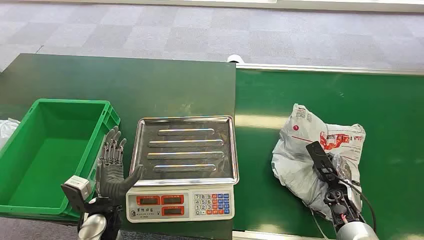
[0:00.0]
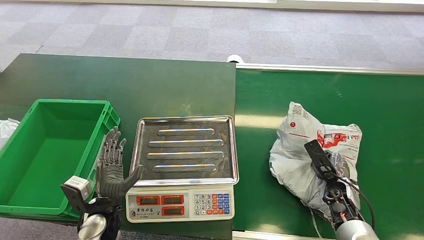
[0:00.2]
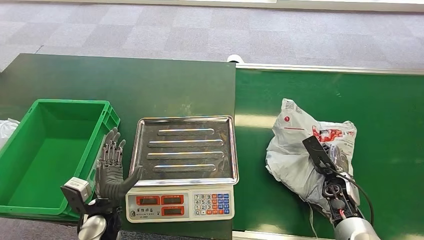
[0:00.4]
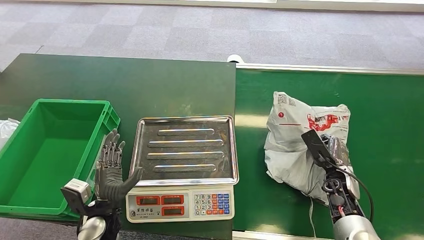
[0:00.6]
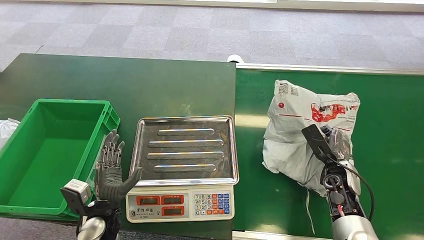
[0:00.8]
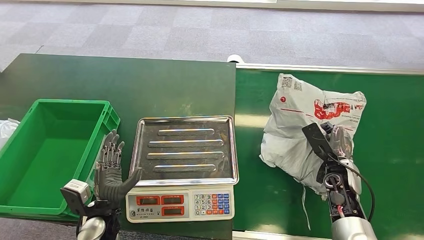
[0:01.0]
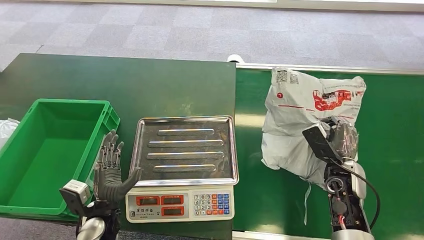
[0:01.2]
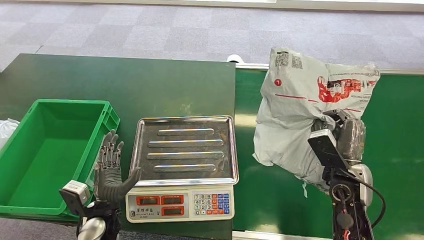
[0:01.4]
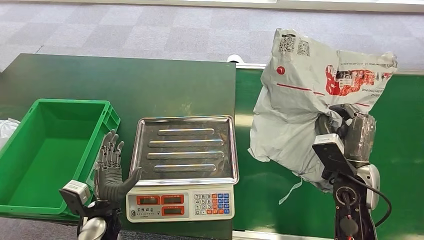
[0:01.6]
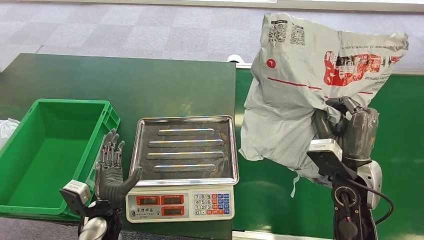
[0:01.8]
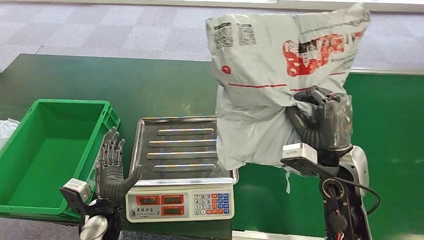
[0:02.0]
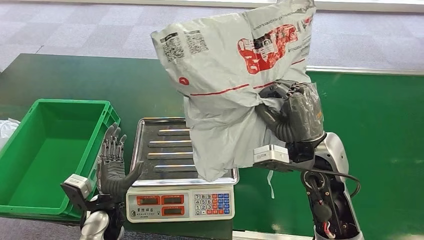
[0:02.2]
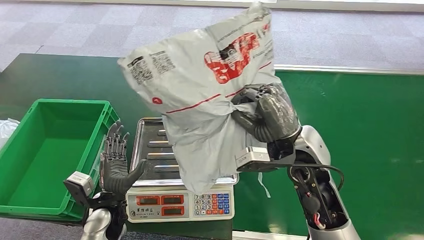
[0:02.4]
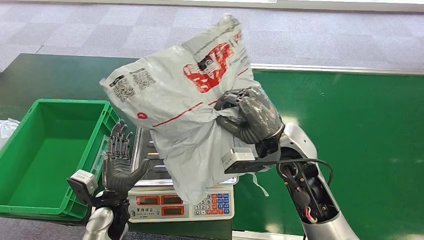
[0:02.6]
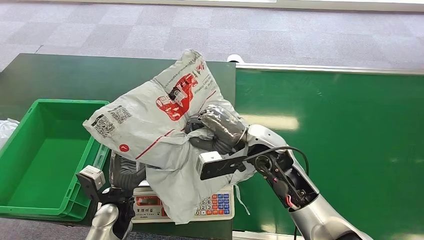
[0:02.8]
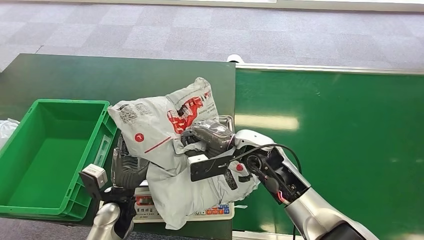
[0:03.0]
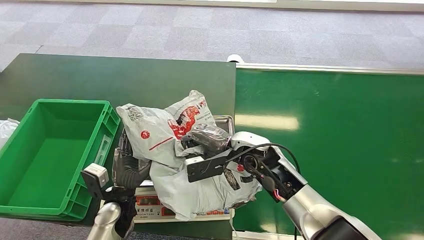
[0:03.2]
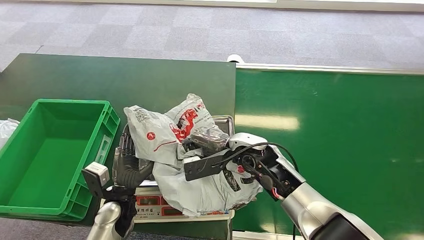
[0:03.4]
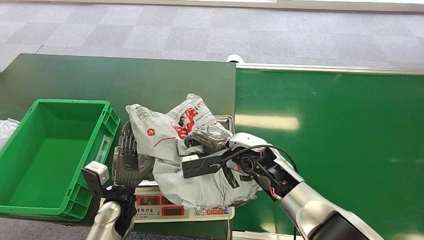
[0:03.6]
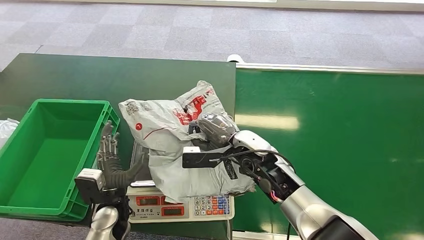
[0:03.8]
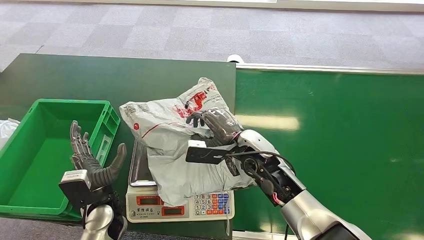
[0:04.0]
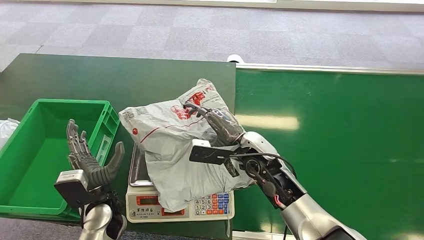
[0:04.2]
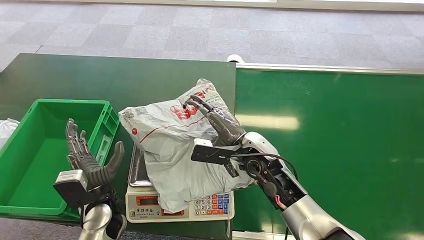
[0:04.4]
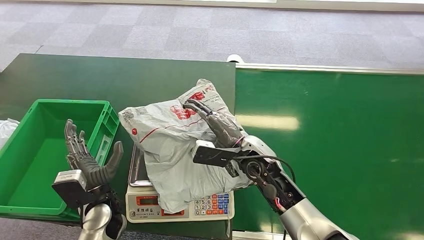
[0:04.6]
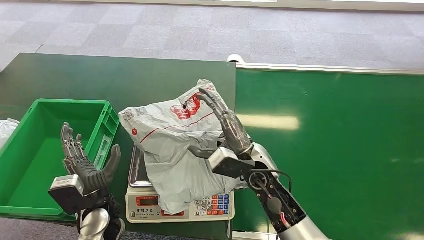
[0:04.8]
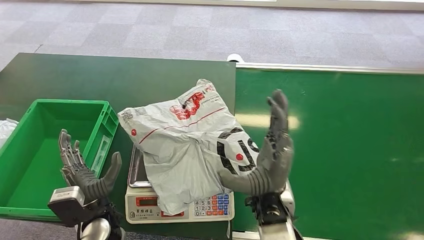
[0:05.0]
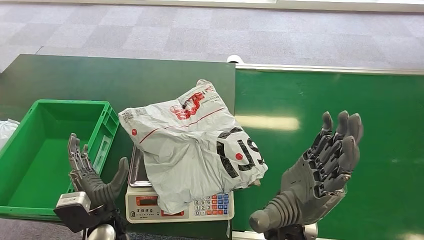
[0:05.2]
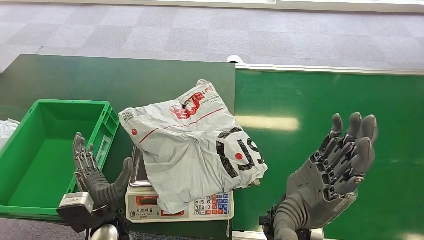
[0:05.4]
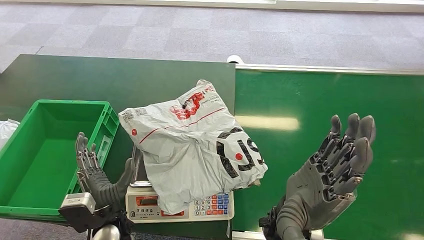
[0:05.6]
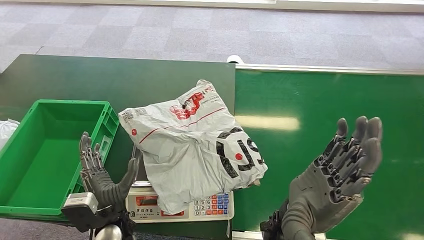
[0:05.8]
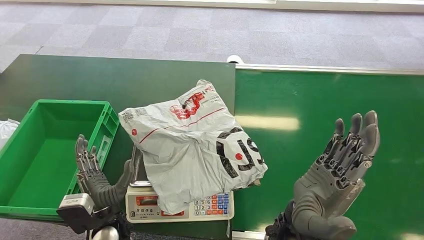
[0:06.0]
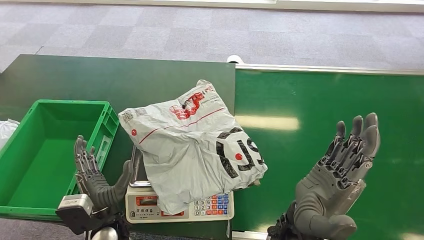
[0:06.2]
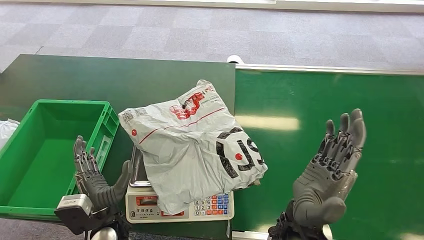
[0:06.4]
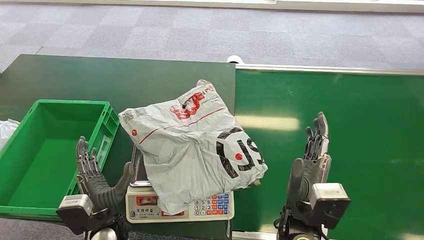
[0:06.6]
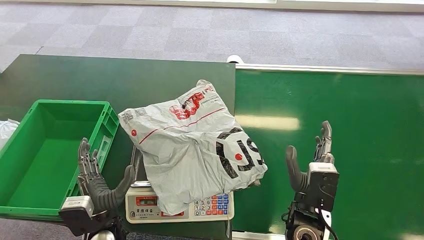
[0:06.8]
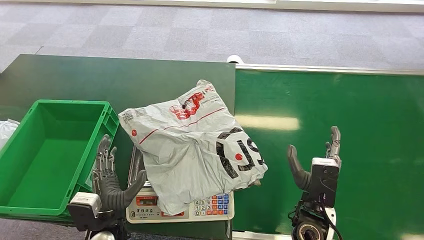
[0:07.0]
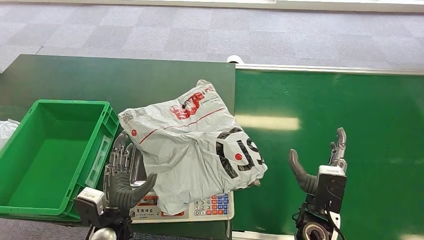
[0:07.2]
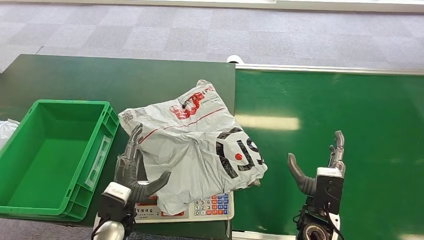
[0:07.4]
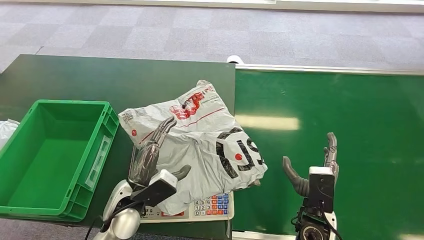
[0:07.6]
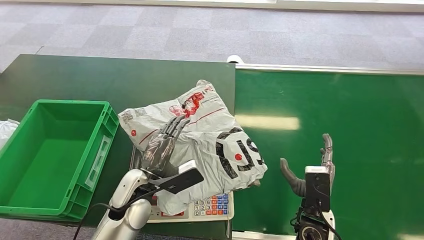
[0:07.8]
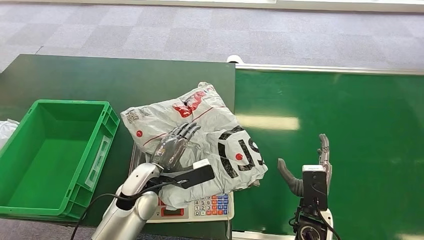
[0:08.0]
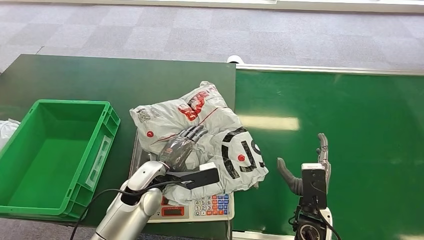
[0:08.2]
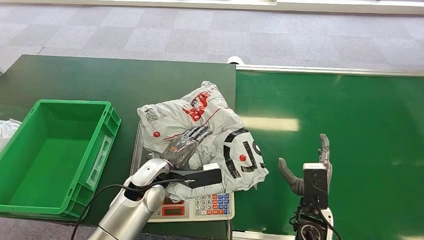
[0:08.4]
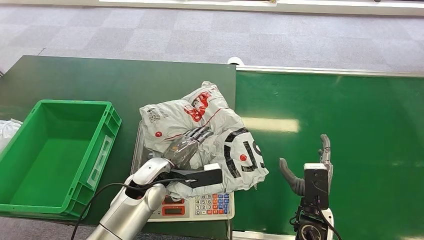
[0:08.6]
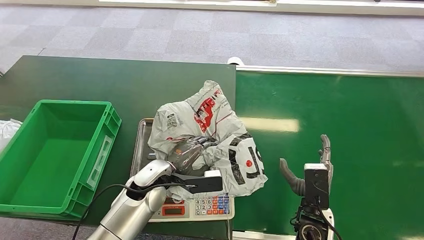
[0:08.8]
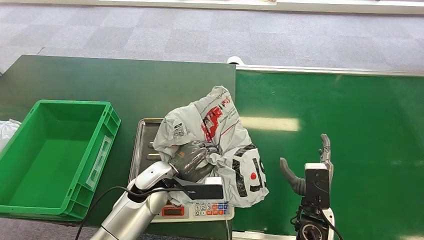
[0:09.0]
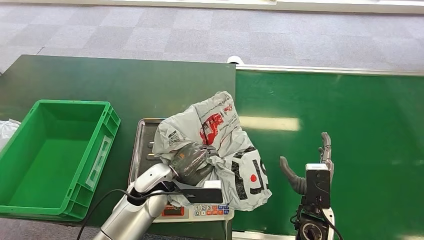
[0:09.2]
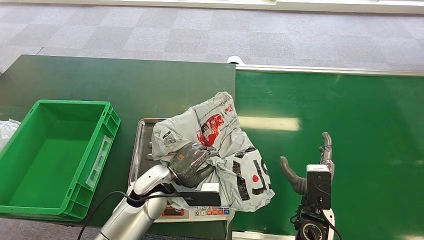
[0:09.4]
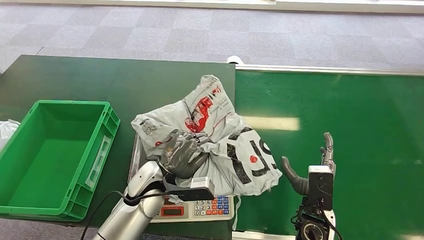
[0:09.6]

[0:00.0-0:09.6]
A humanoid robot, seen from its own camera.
Step, 0:00.0 to 0:01.4: Pick up the package from the conveyor belt.
Step, 0:02.2 to 0:04.6: Place the package onto the inbound machine.
0:04.8 to 0:06.4: The left hand changes place by about 5 cm. Meanwhile the right hand is displaced backward by about 15 cm.
0:06.4 to 0:08.0: The right hand goes approximately 15 cm downward, to the right and forward; the left hand travels forward and to the right by about 10 cm.

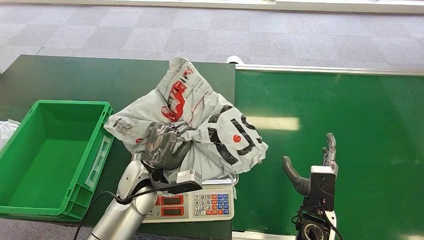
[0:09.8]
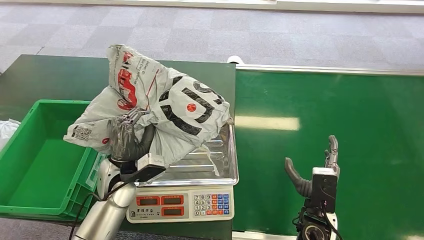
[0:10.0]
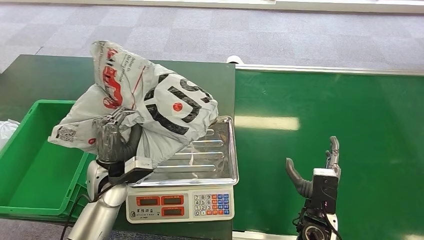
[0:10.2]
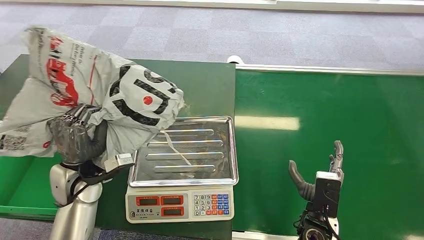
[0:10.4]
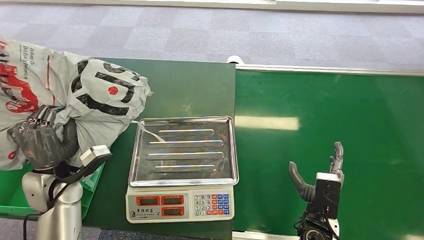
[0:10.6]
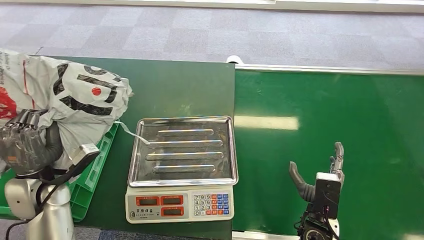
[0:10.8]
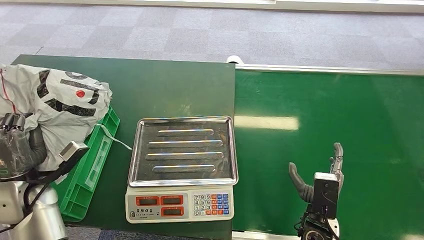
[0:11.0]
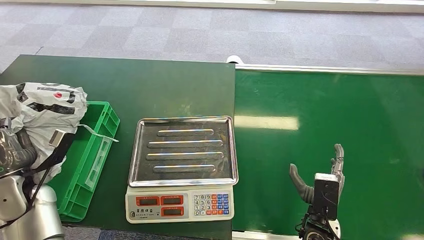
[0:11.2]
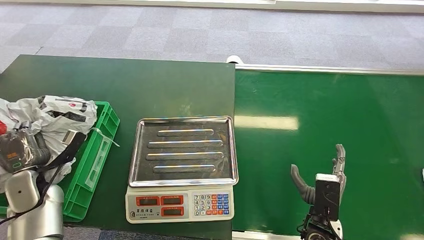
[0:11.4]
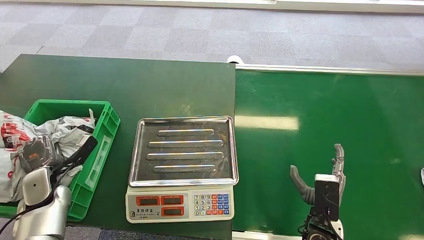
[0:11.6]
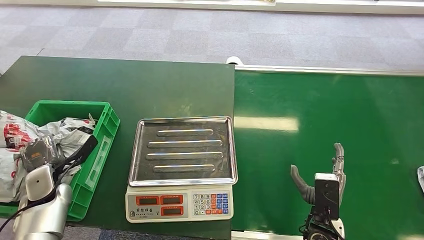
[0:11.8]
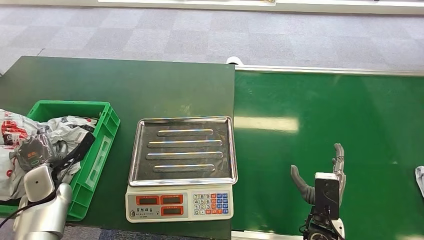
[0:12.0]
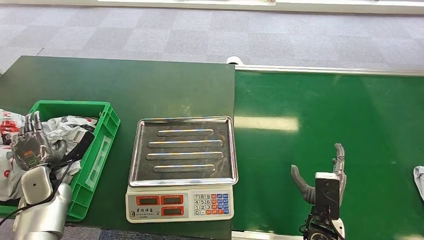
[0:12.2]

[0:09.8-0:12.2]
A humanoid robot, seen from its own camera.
Step, 0:10.6 to 0:12.2: Place the package into the parcel locker.
0:11.0 to 0:12.2: The left hand goes about 10 cm downward.

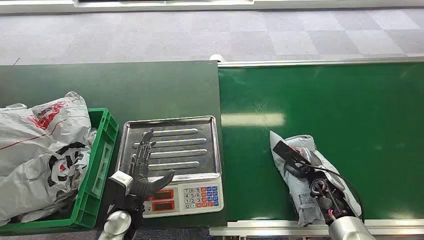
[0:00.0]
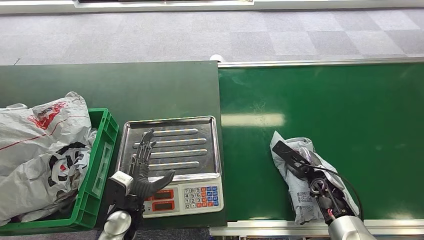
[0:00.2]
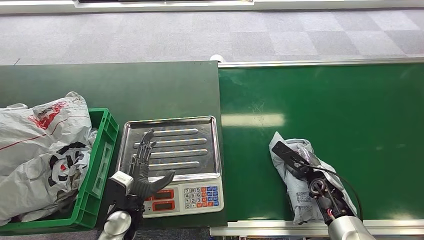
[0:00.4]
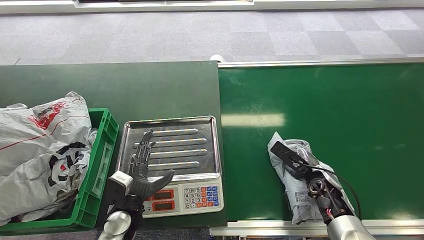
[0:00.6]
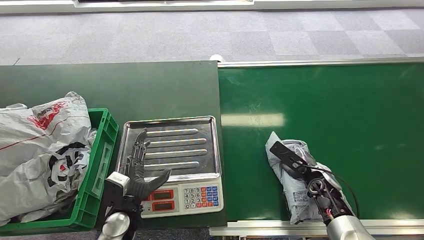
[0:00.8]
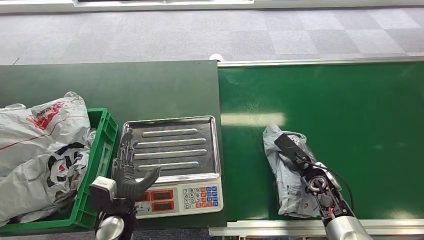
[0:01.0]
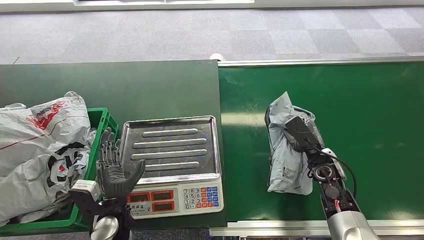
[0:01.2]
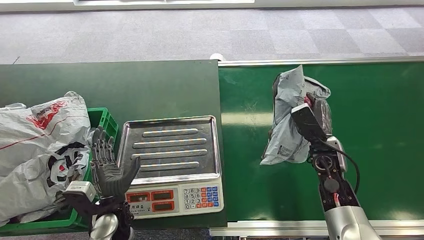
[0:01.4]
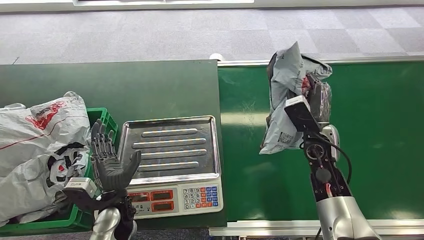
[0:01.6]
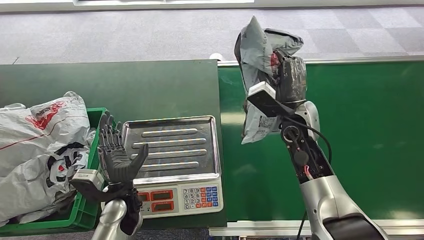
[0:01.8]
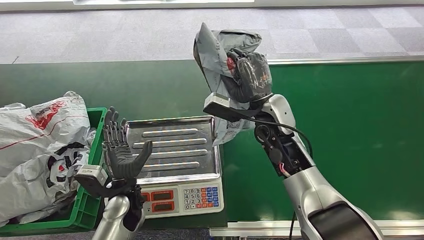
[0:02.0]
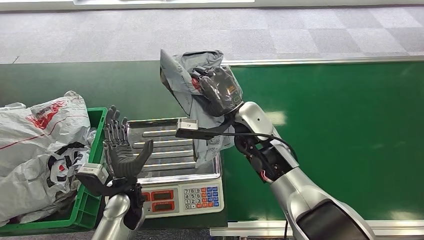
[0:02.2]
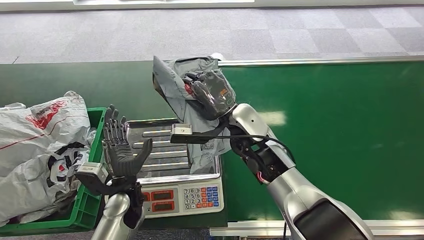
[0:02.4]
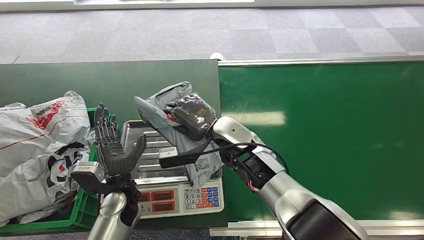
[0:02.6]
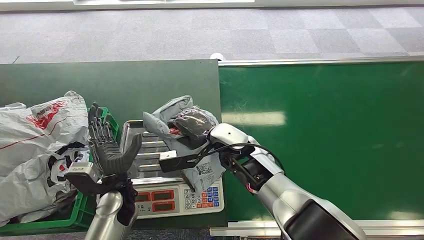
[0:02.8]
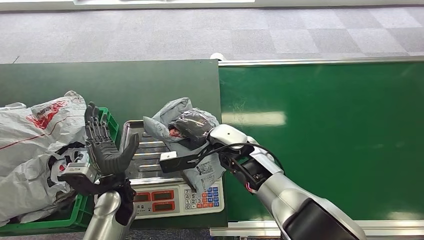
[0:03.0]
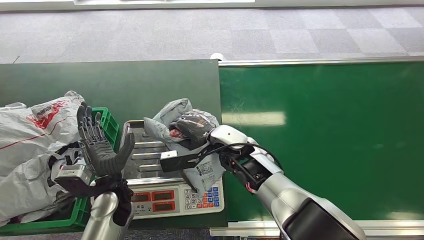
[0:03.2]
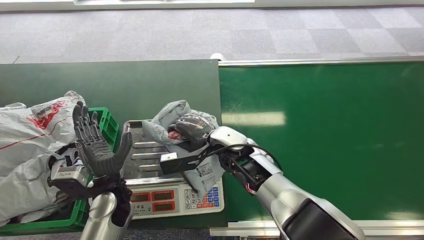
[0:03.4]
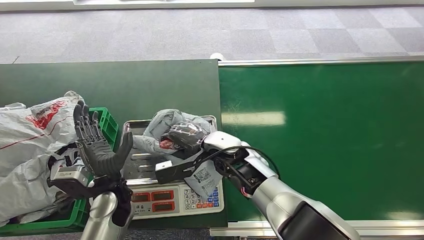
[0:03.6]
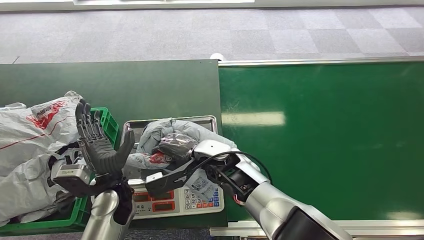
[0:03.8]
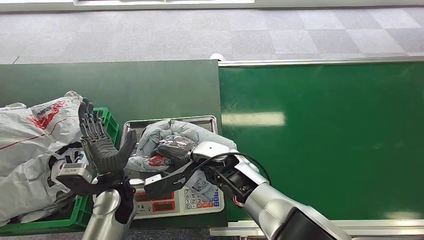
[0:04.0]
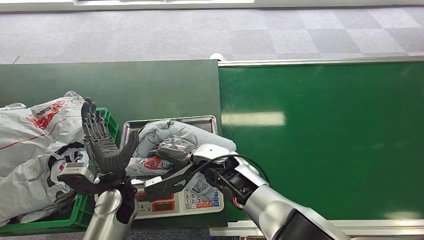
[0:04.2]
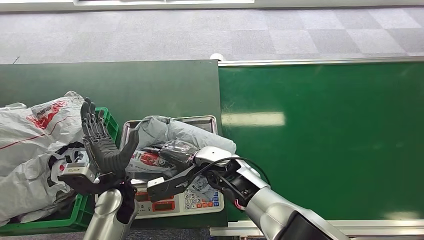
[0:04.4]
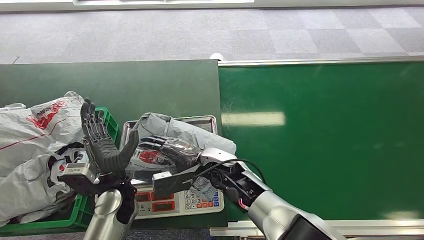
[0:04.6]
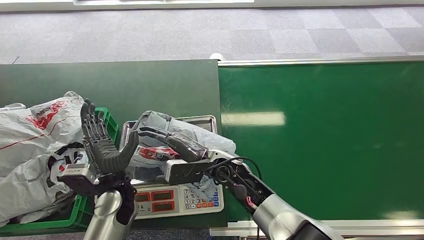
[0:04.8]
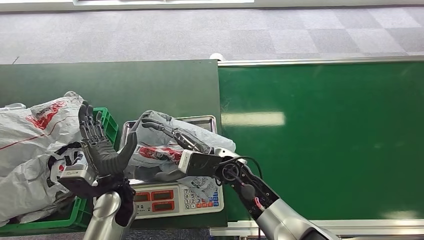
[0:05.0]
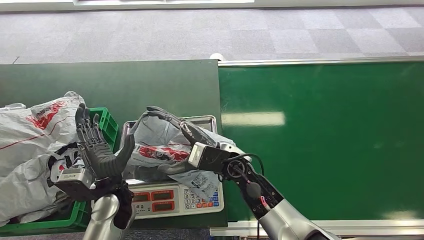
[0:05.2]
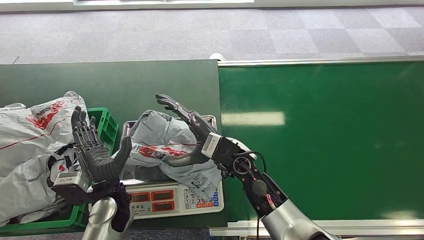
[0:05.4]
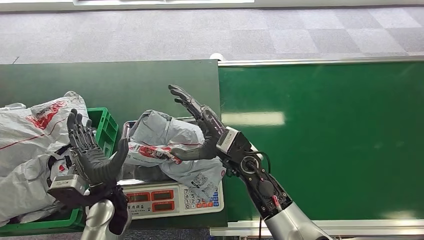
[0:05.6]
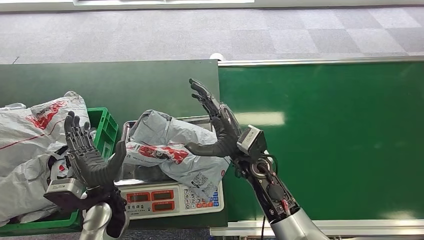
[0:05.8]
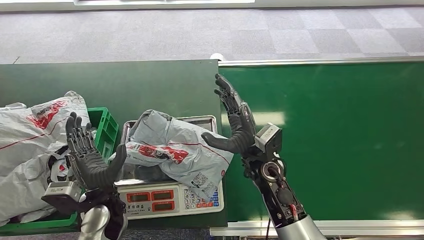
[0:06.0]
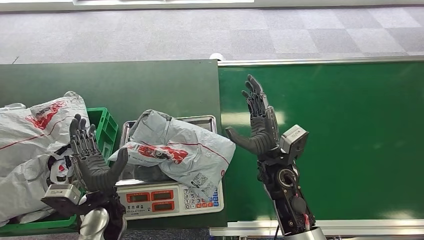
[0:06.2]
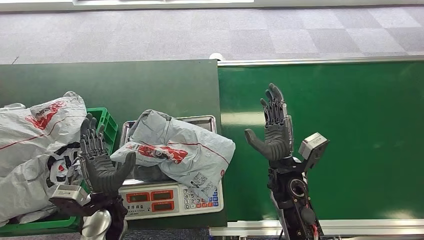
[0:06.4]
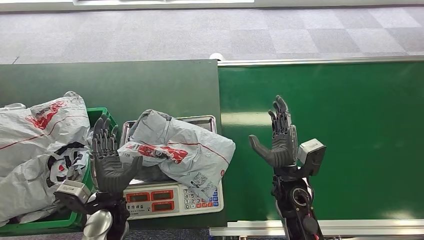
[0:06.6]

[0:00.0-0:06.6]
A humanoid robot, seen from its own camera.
Step, 0:00.0 to 0:01.4: Pick up the package from the conveyor belt.
Step, 0:02.2 to 0:04.8: Place the package onto the inbound machine.
0:03.2 to 0:05.0: The right hand heads backward, covering roughly 5 cm.
0:05.0 to 0:06.6: The right hand heads to the right, covering about 10 cm.
